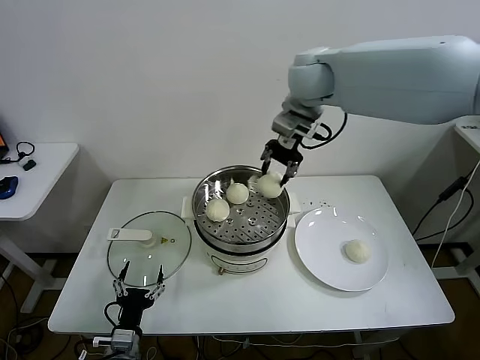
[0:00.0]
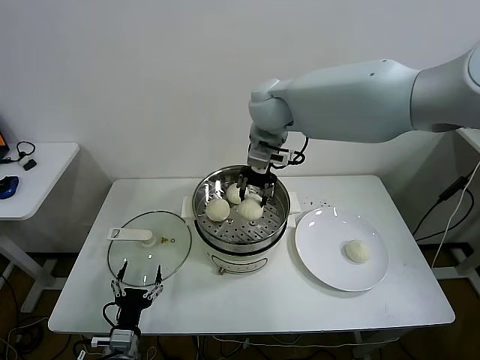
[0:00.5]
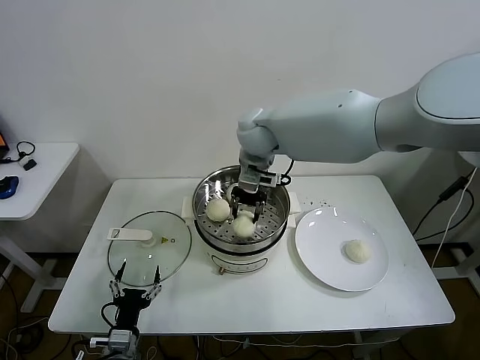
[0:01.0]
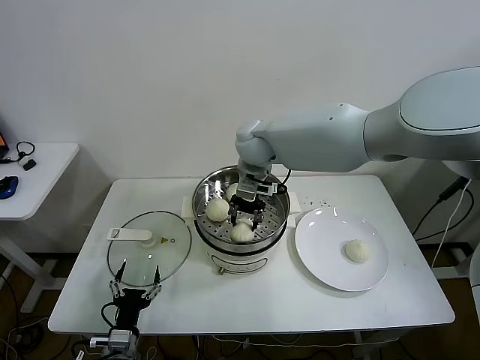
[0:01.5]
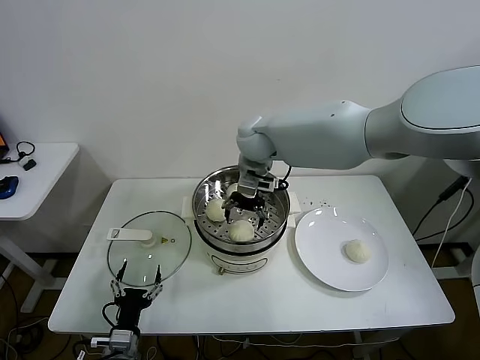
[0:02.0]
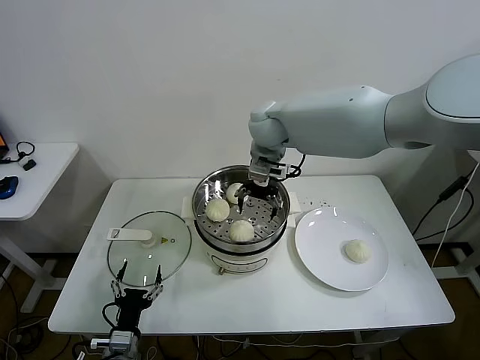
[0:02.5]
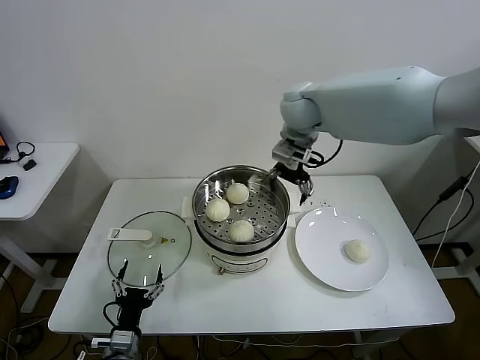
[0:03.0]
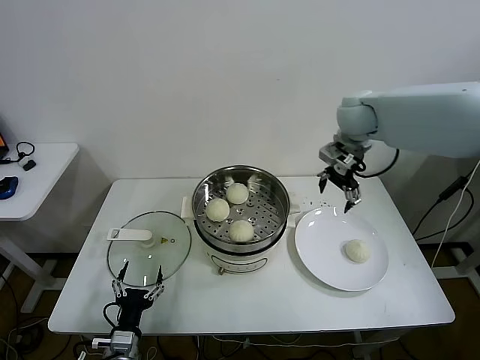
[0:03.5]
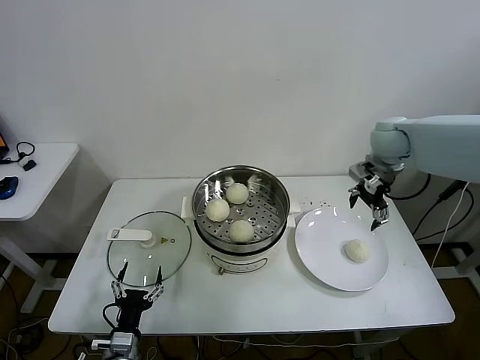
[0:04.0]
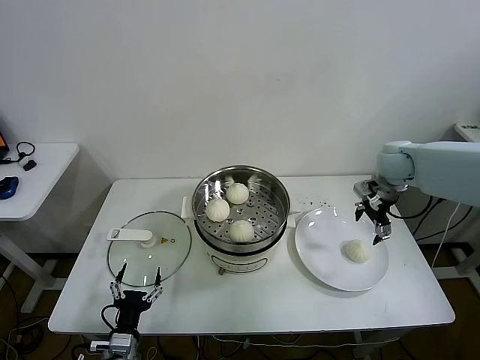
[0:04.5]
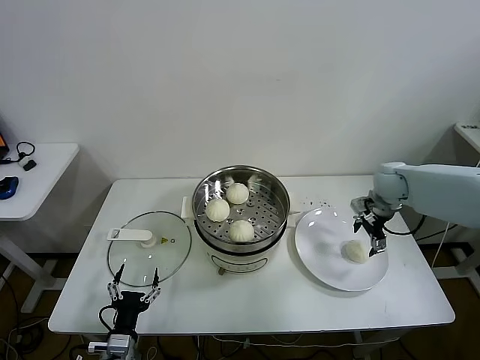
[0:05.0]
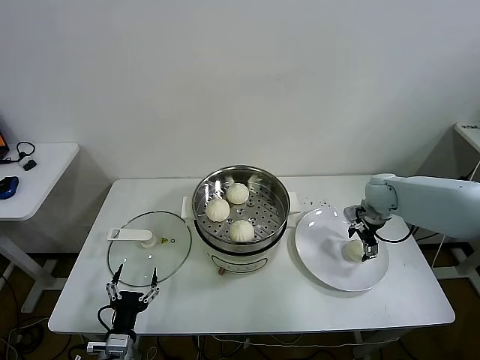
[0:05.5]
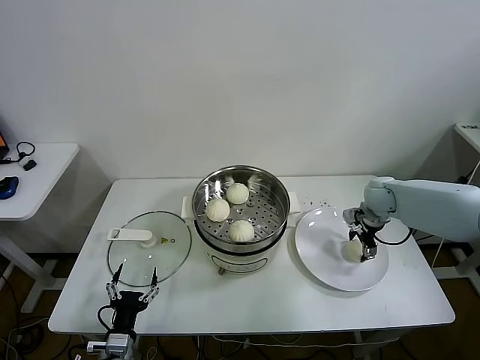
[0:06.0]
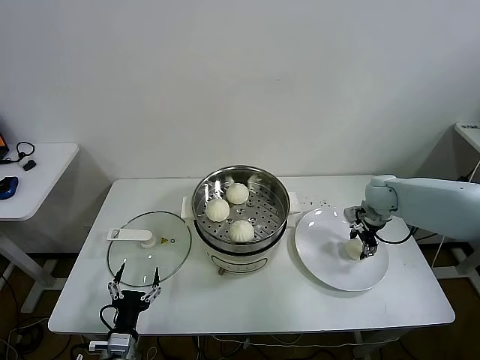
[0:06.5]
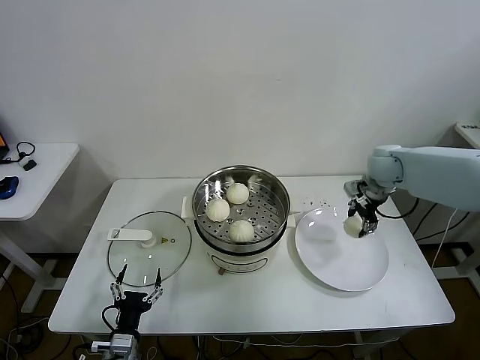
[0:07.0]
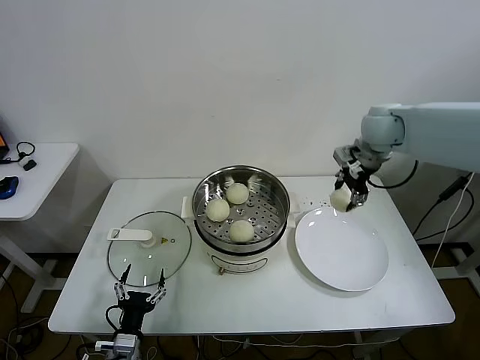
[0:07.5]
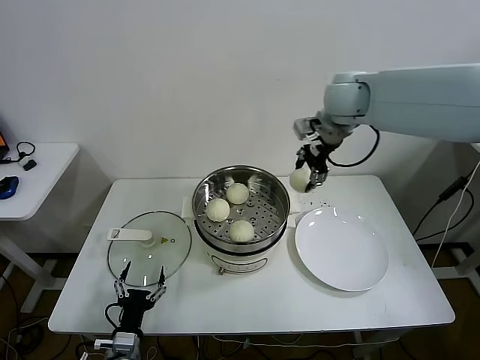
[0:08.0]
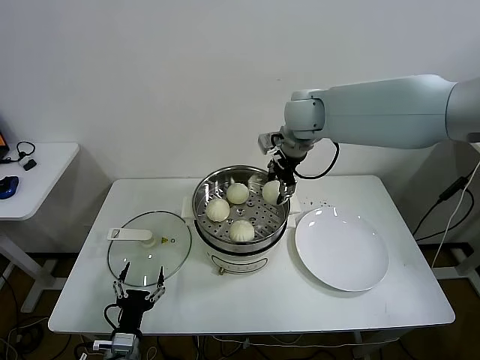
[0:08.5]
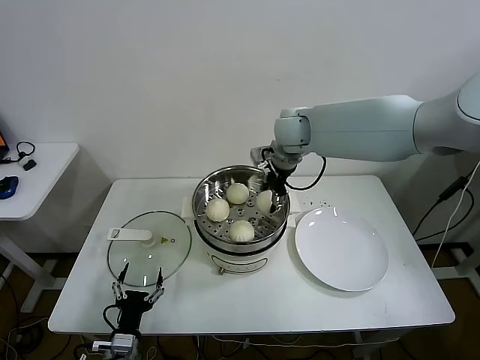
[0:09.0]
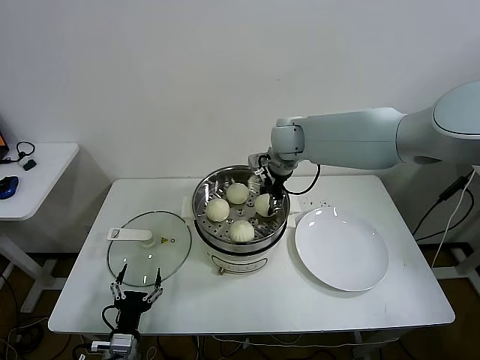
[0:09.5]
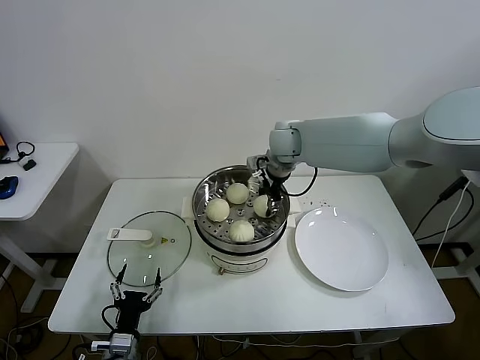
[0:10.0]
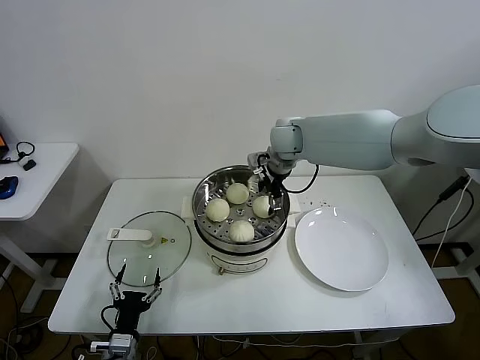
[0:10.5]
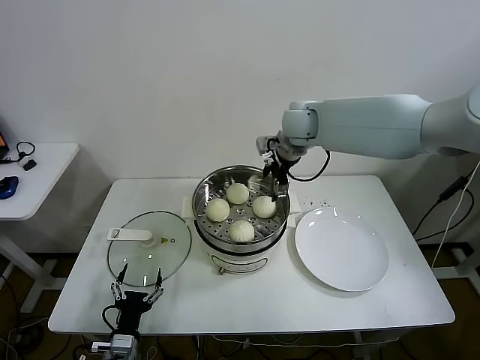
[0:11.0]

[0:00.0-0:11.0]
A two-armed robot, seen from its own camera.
Task of the whole recording: take steamed baozi put them in steamer.
Step, 0:02.5 to 0:06.5: Grasp the baozi in the plate with right gripper.
Step, 0:07.0 to 0:10.5: Place the baozi on the steamer with right gripper.
0:00.0 to 0:02.0: The right gripper moves downward and to the left, roughly 15 cm, and opens its fingers.
0:02.0 to 0:03.5: The right gripper goes about 20 cm to the right.
0:03.5 to 0:05.5: The right gripper shifts about 25 cm downward and to the right.
0:05.5 to 0:07.5: The right gripper moves upward, roughly 20 cm, and closes.
0:07.5 to 0:09.0: The right gripper moves to the left, roughly 20 cm.
0:09.0 to 0:11.0: The right gripper opens up.

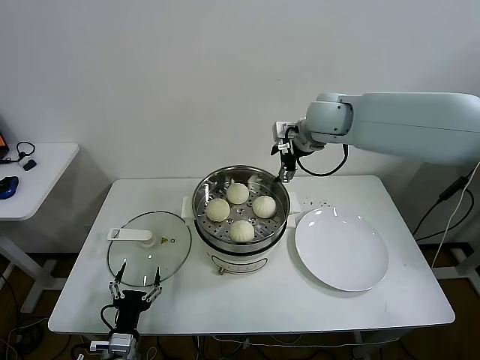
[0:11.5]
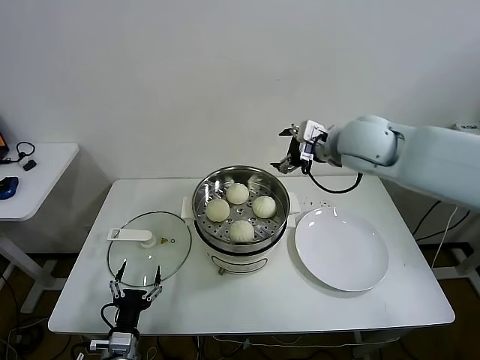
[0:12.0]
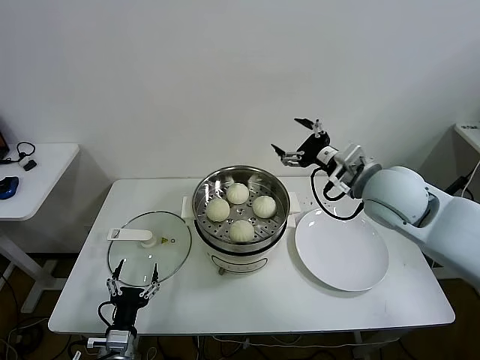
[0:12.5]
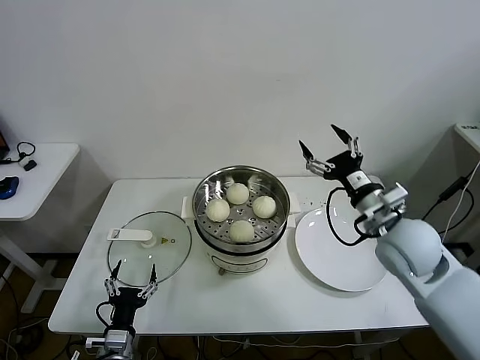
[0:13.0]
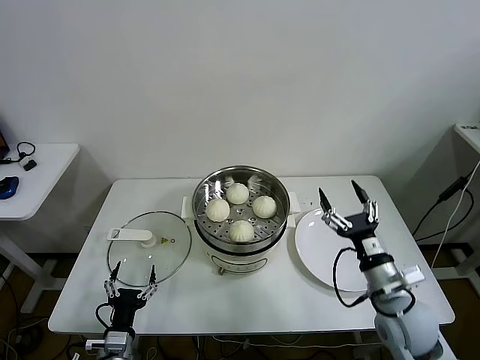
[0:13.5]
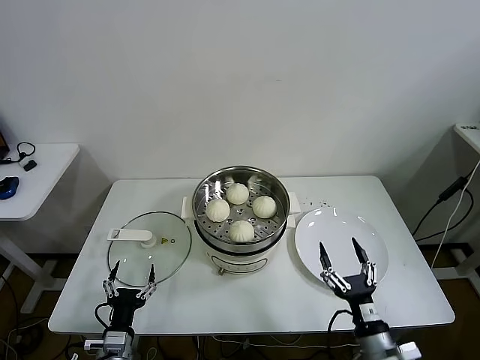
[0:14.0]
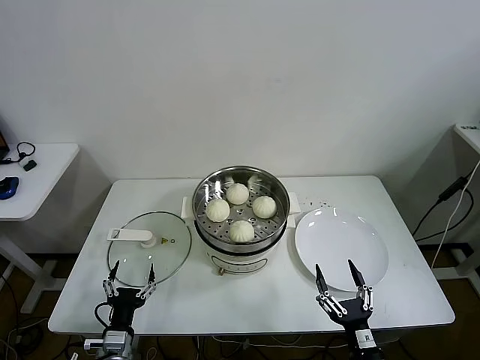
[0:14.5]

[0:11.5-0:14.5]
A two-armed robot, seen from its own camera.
Task of the whole recording: take steamed baozi put them in steamer.
0:11.5 to 0:13.0: The right gripper is displaced backward, downward and to the right by approximately 25 cm.
0:13.0 to 0:14.5: The right gripper is displaced backward and downward by approximately 35 cm.

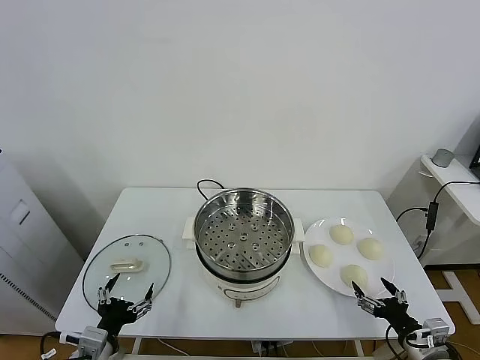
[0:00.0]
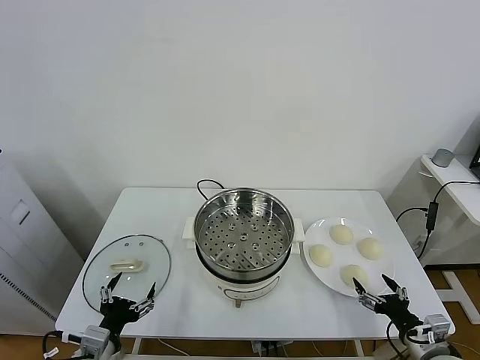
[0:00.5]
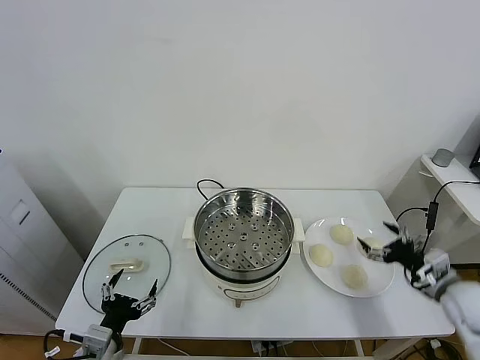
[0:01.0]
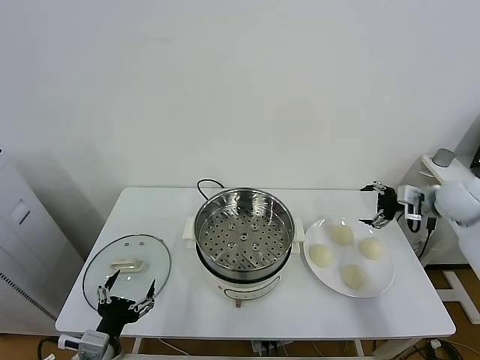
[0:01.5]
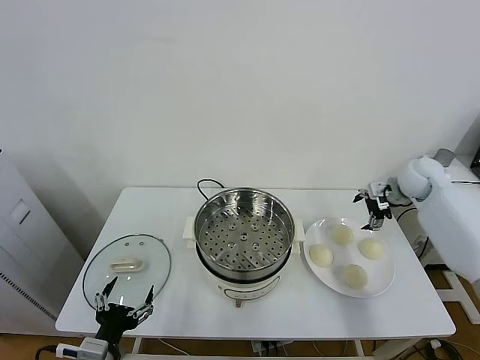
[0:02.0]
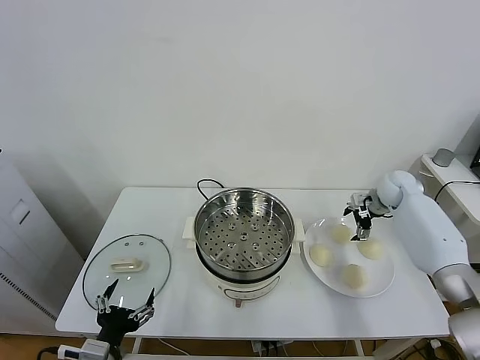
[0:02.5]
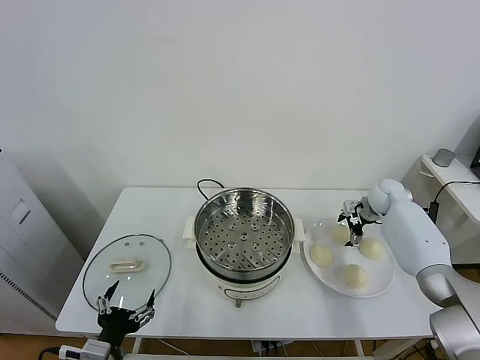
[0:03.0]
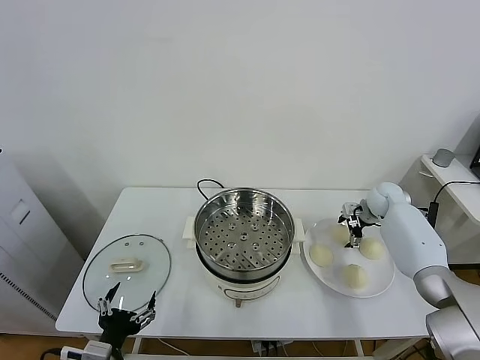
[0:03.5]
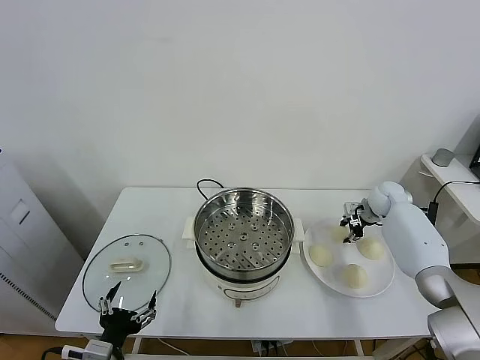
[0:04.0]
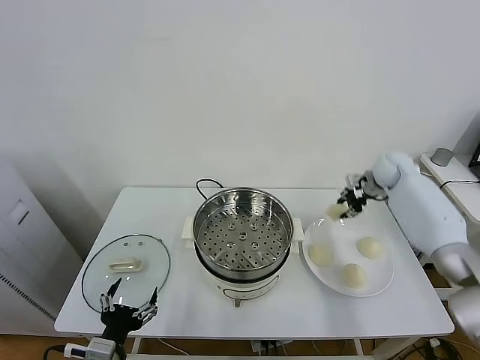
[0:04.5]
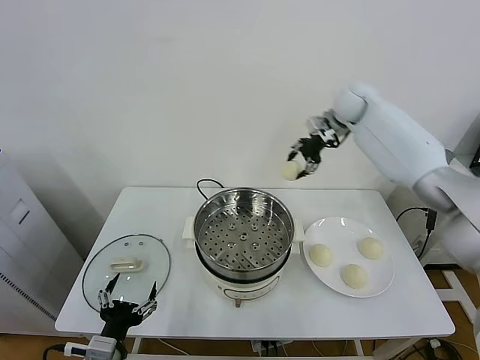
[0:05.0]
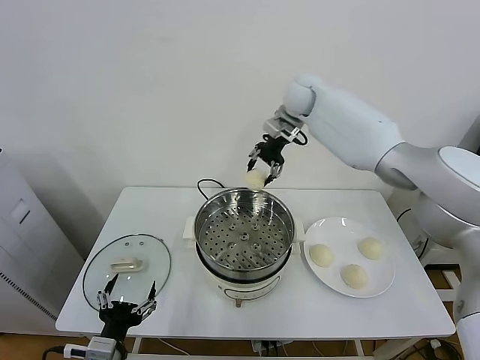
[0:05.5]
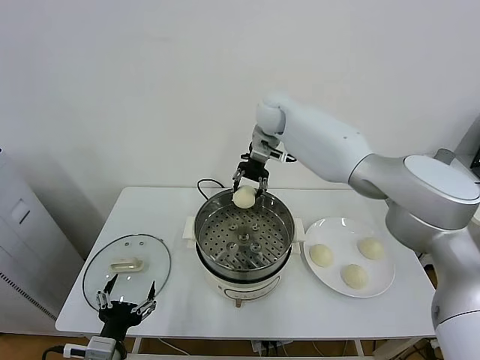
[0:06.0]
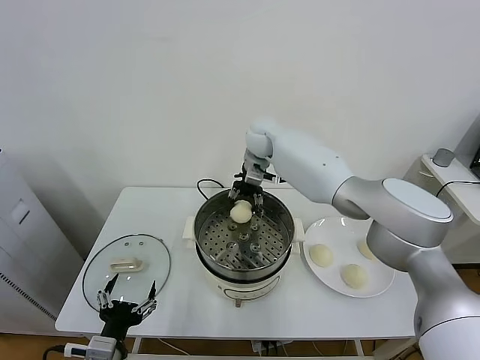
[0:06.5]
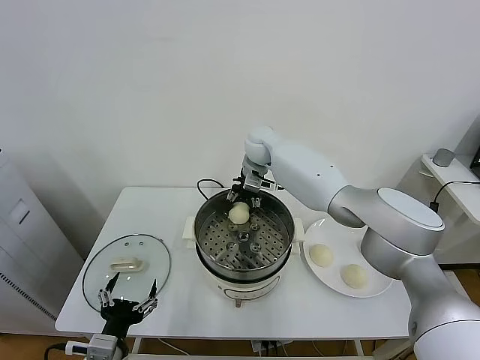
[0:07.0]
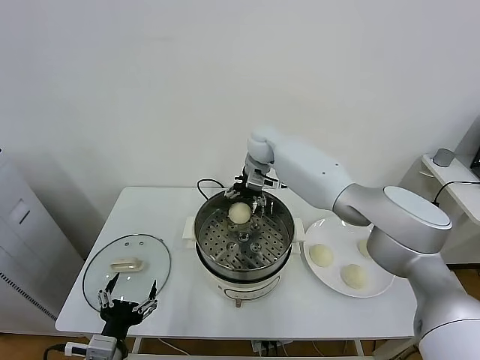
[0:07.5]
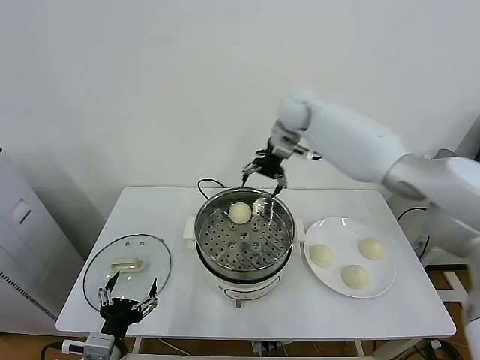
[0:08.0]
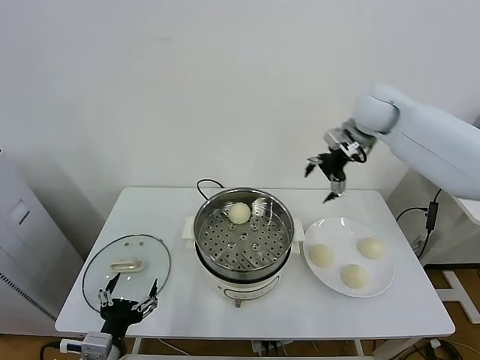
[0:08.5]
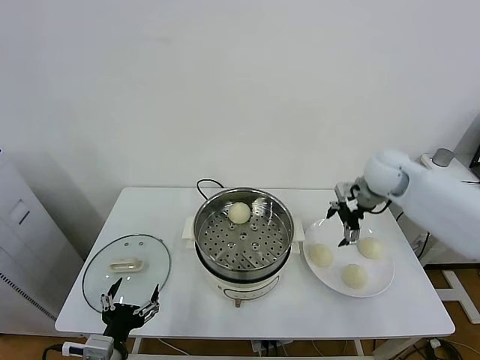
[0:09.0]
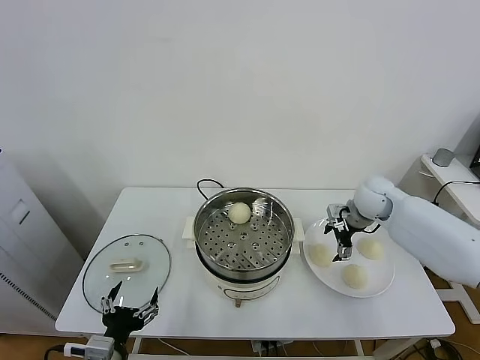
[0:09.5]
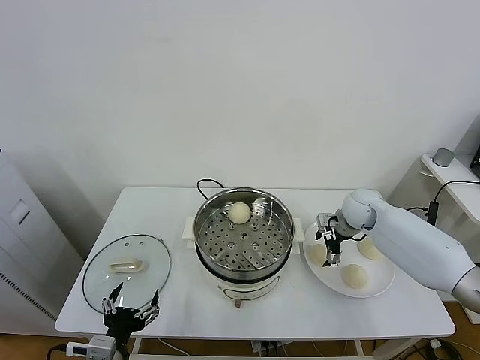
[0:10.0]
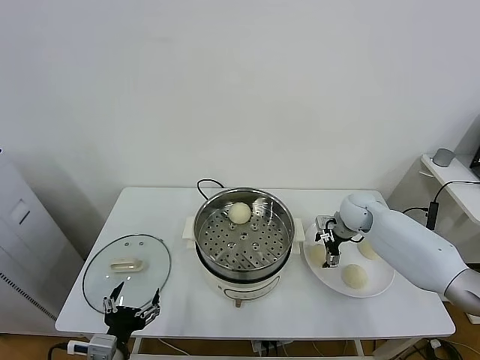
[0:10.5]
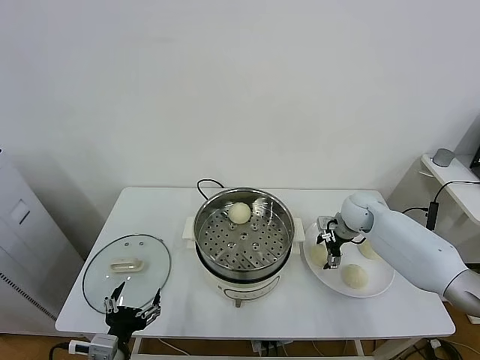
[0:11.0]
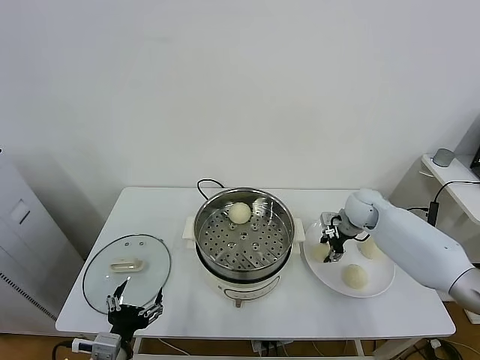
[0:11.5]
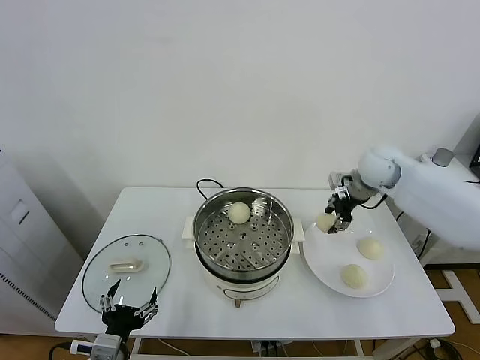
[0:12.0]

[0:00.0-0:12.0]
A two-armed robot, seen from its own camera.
Task of the whole recording: take steamed baozi put them in steamer.
Step, 0:00.0 to 0:04.0: Grasp the baozi in the plate with right gripper.
Step, 0:04.5 to 0:07.5: Place the baozi on the steamer with right gripper.
Step, 0:08.0 to 0:11.0: Grasp the baozi in the plate with right gripper.
0:02.0 to 0:04.0: The right gripper travels downward by roughly 10 cm, and closes up.
0:04.0 to 0:06.0: The right gripper shifts about 40 cm to the left and upward.
0:06.0 to 0:08.0: The right gripper travels to the right by roughly 10 cm, and opens up.
0:08.0 to 0:10.0: The right gripper shifts roughly 30 cm downward and to the right.
0:10.0 to 0:12.0: The right gripper heads upward, covering approximately 15 cm, and closes its fingers.
